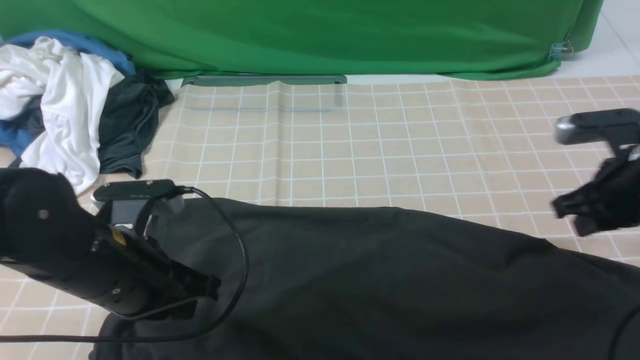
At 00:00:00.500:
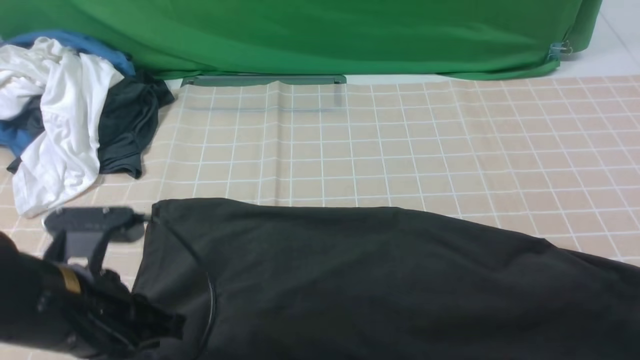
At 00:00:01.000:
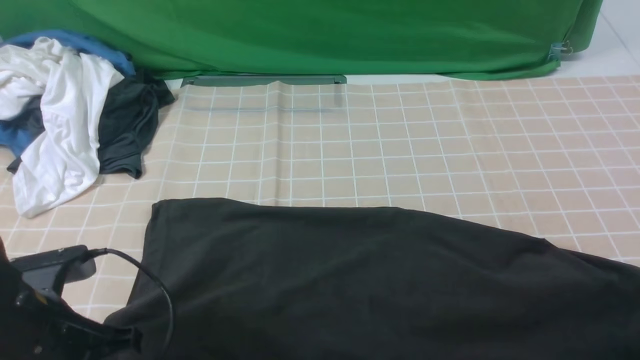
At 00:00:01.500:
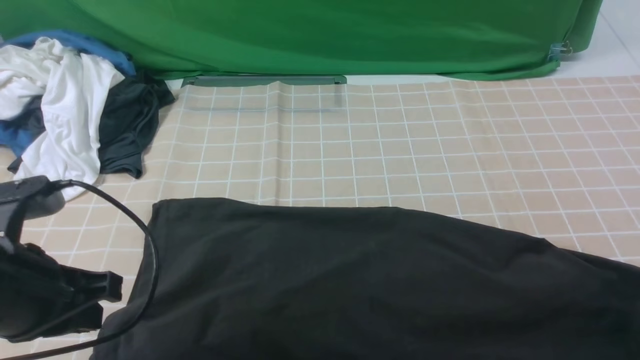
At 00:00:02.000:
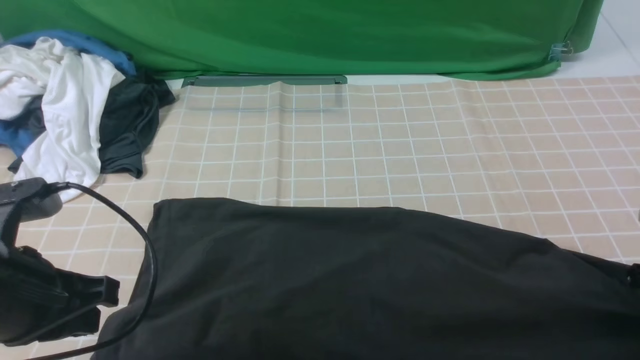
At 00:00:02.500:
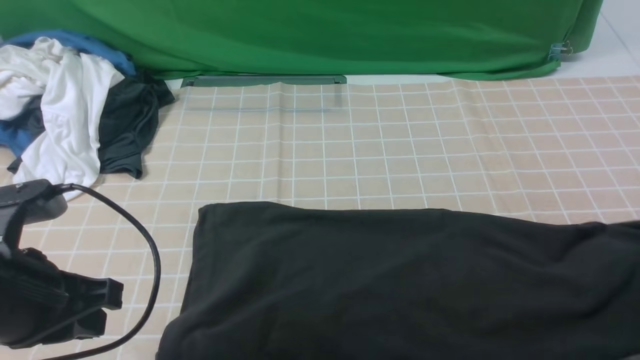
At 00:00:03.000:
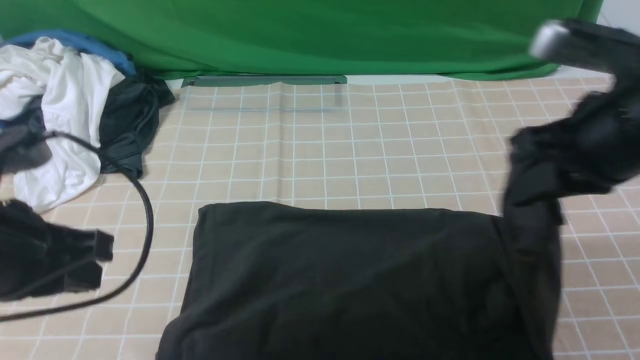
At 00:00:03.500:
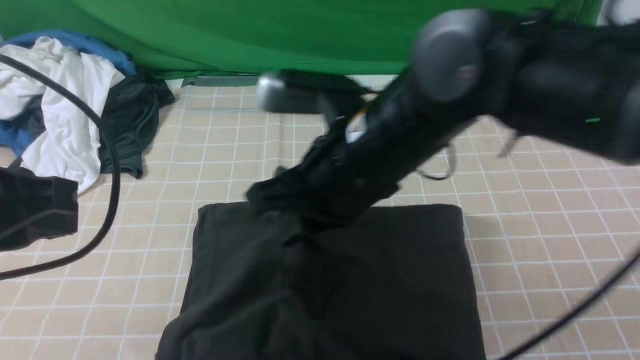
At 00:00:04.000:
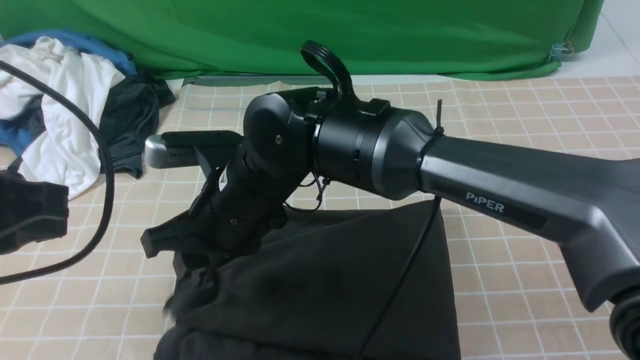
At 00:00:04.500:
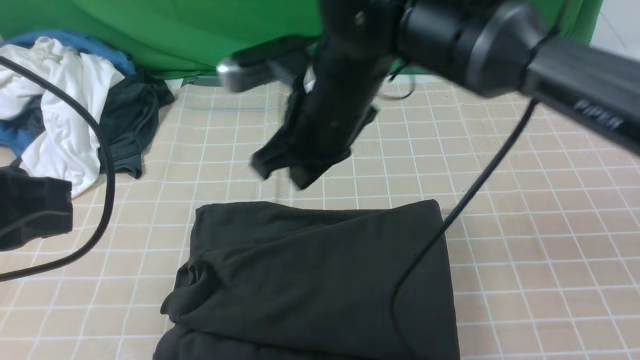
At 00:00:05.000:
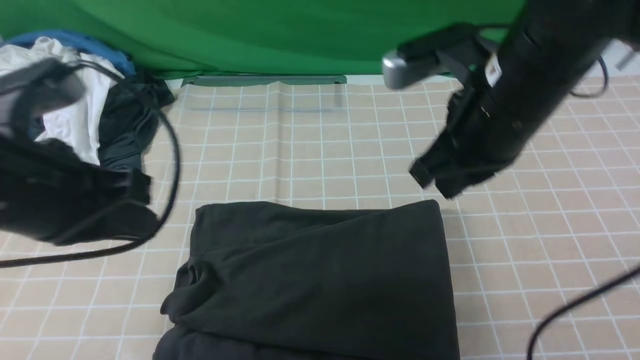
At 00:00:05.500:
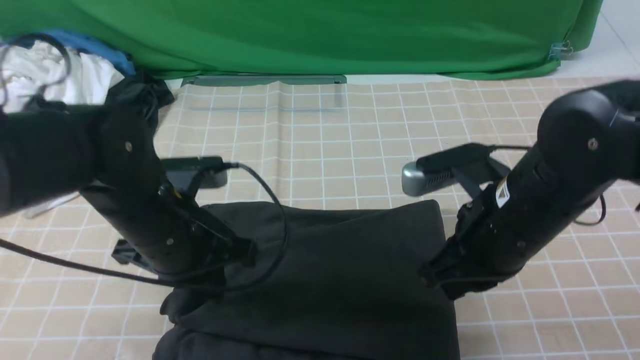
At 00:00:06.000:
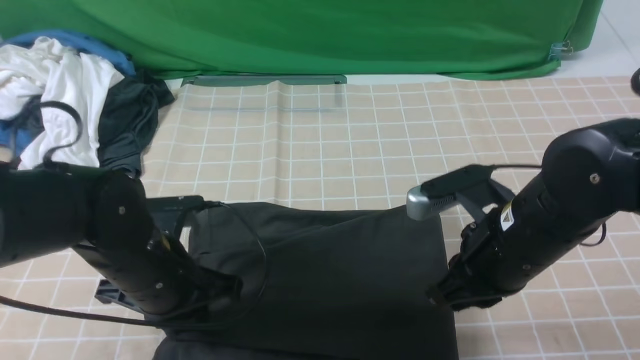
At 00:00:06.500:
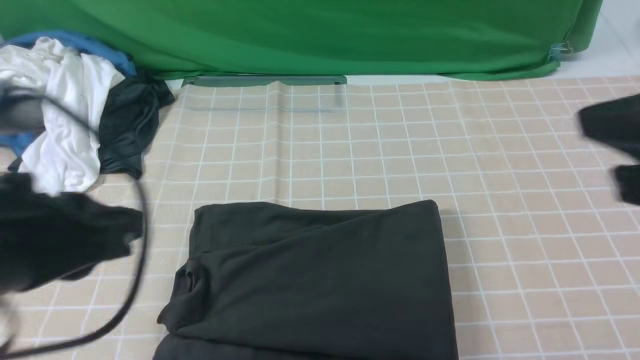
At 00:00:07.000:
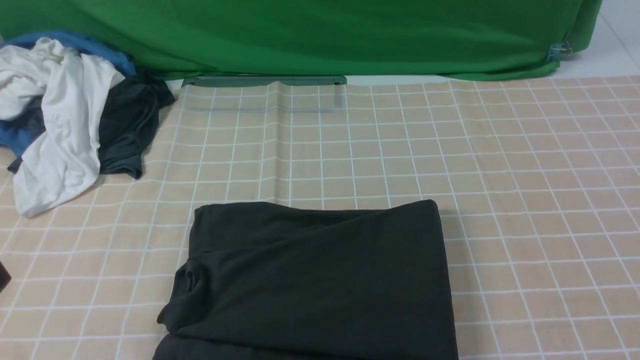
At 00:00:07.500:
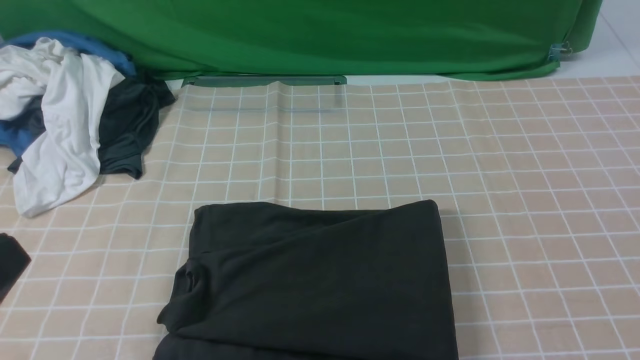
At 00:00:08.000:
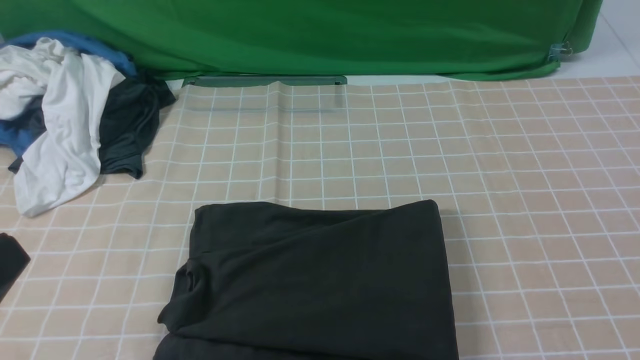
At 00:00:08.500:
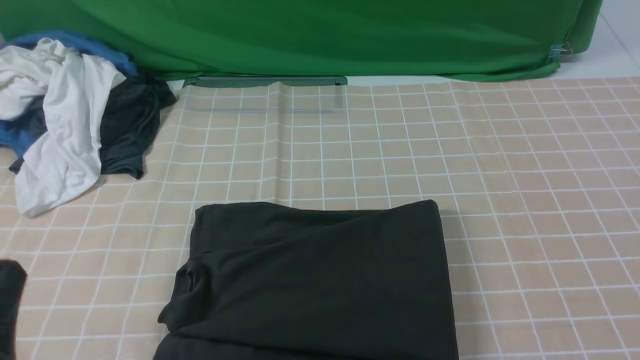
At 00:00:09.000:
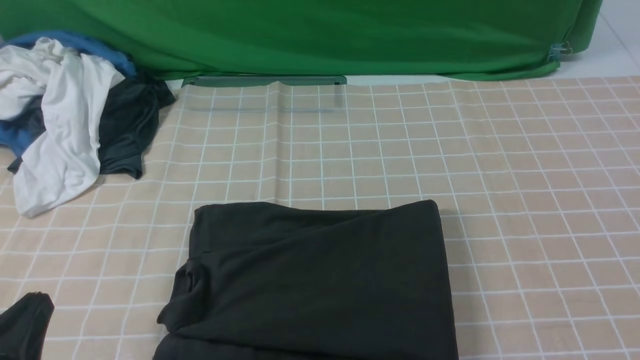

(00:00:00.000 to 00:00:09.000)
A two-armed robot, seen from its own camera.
Step, 00:00:02.500 - 00:00:04.000: use the right arm to drag the right edge of the fabric to the left and folds it over the left edge.
00:00:00.000 - 00:00:02.000: The right gripper travels to the right and backward by some 10 cm, and opens, then closes again, while the left gripper moves to the left, some 5 cm.
00:00:02.000 - 00:00:04.500: The right gripper is displaced to the left by approximately 35 cm. The left gripper goes some 10 cm upward.
00:00:04.500 - 00:00:07.000: The right gripper shifts about 40 cm backward and to the right, while the left gripper heads backward, covering roughly 15 cm.
00:00:07.000 - 00:00:09.000: The left gripper goes some 15 cm downward.

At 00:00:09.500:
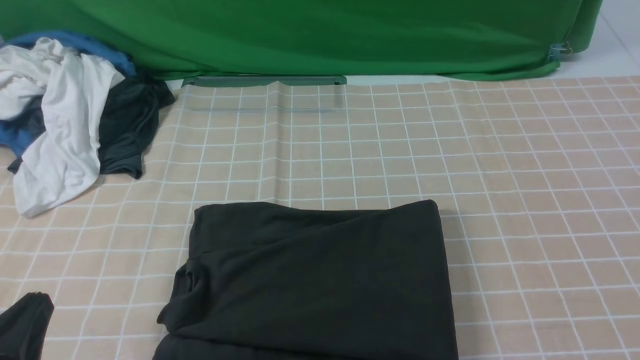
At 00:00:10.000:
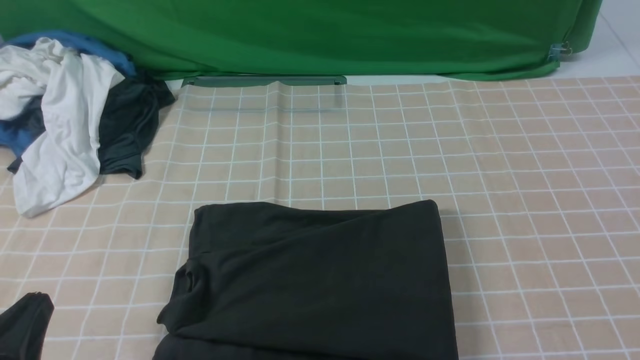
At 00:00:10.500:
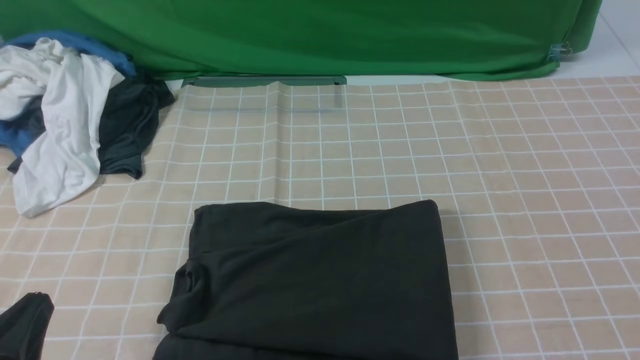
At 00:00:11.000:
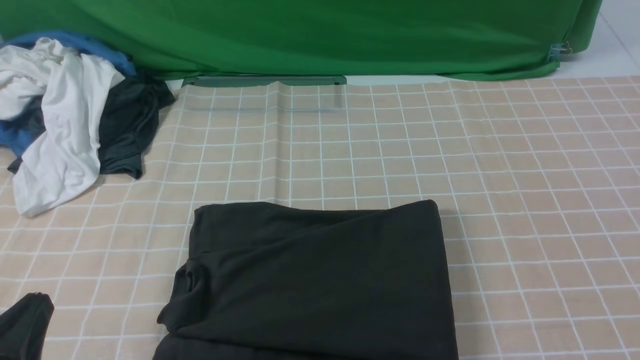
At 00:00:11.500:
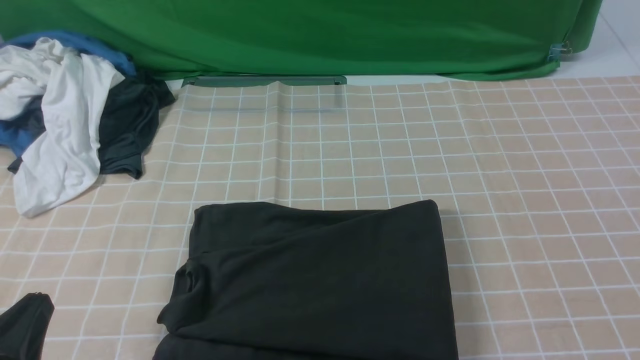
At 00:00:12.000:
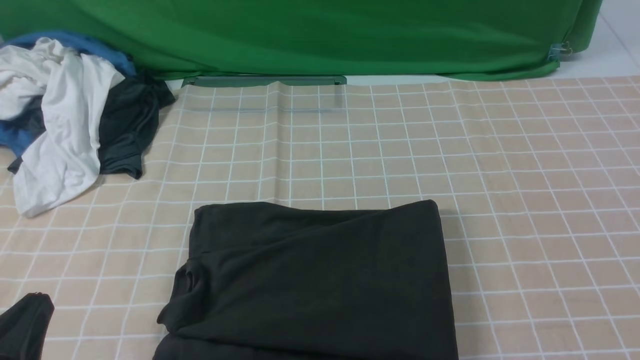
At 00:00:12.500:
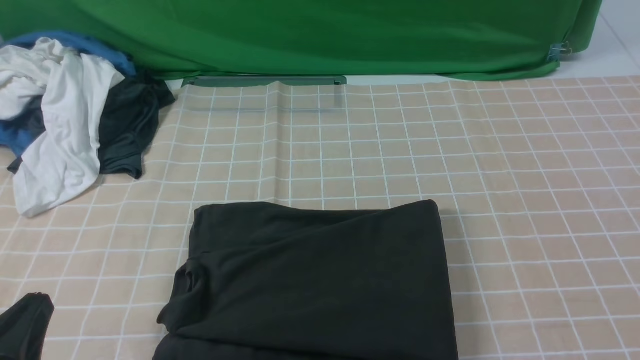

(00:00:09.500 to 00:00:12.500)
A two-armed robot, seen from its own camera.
00:00:11.000 - 00:00:12.500: Both grippers stay put.
